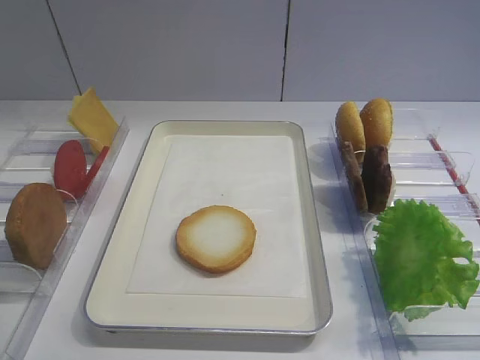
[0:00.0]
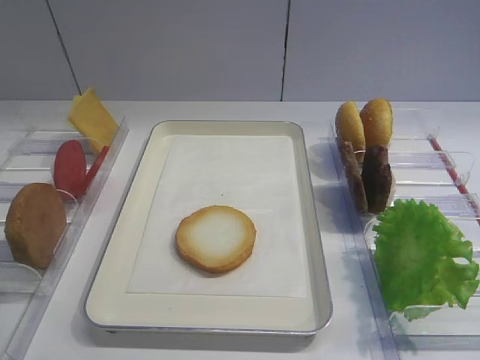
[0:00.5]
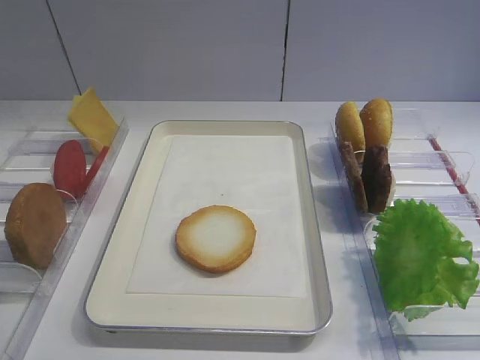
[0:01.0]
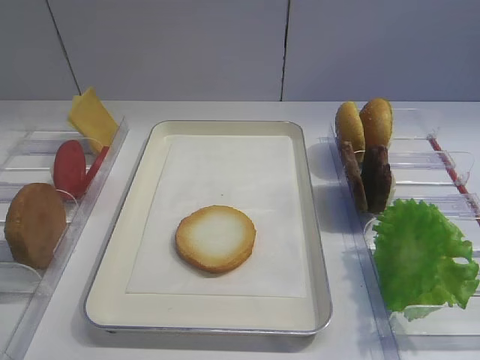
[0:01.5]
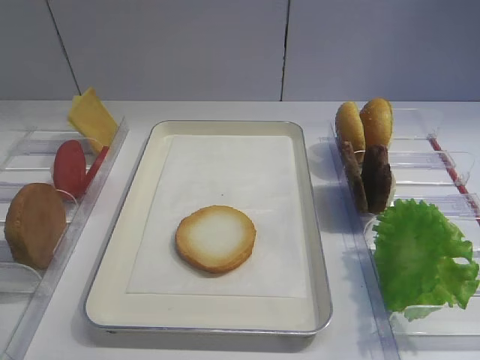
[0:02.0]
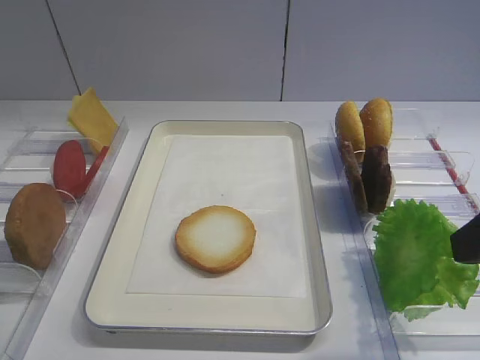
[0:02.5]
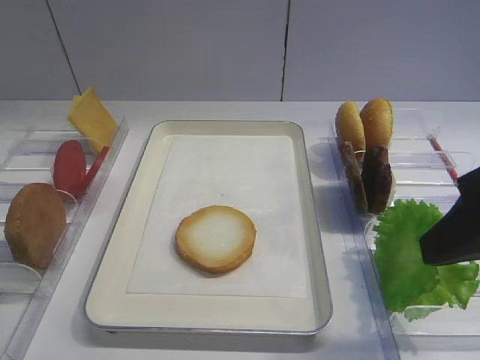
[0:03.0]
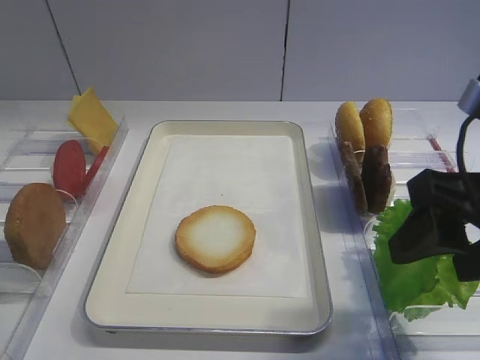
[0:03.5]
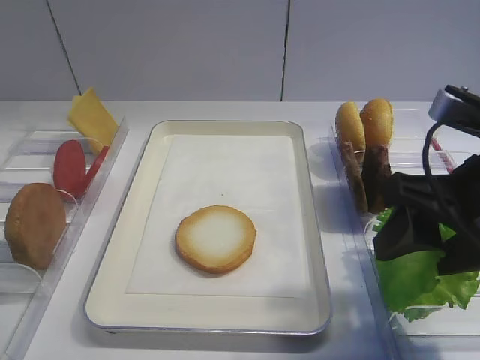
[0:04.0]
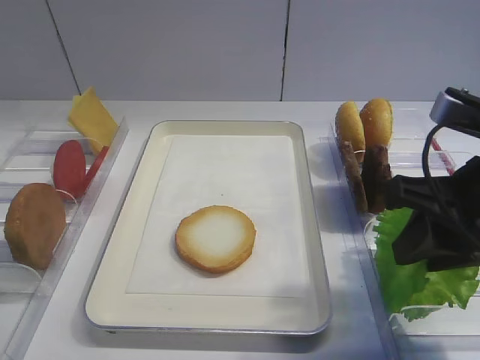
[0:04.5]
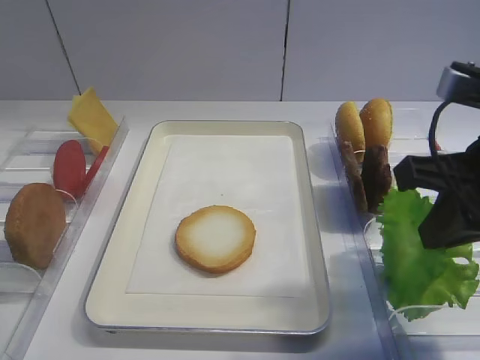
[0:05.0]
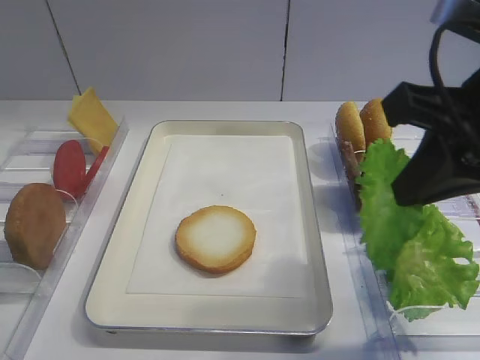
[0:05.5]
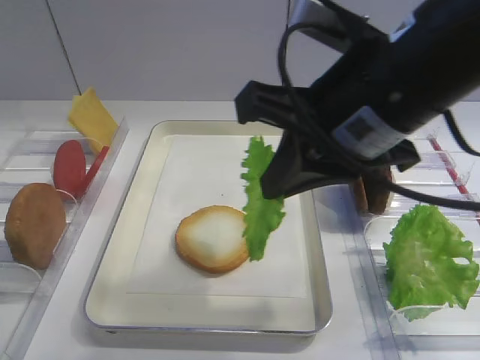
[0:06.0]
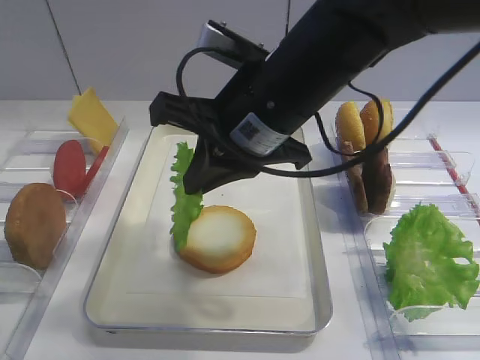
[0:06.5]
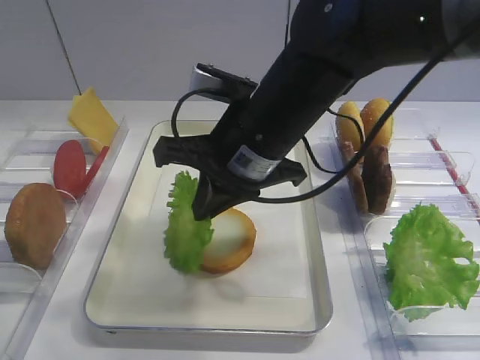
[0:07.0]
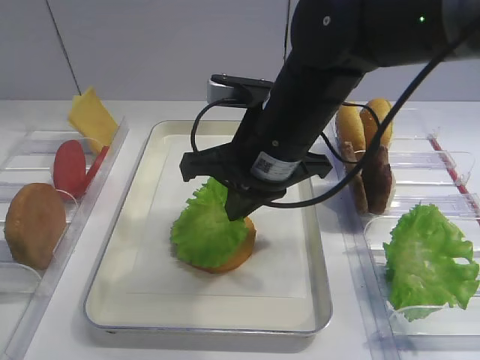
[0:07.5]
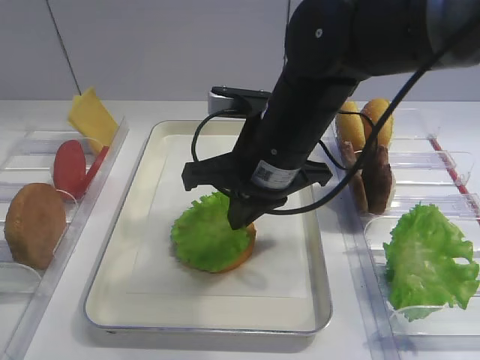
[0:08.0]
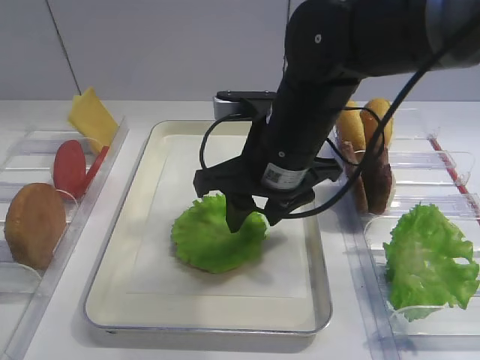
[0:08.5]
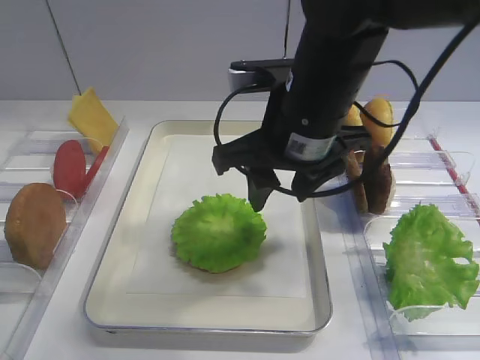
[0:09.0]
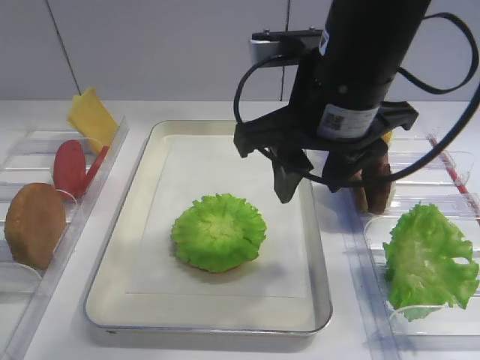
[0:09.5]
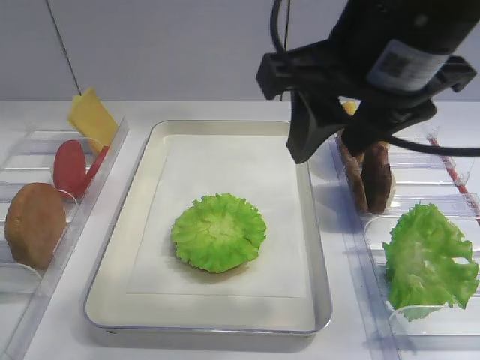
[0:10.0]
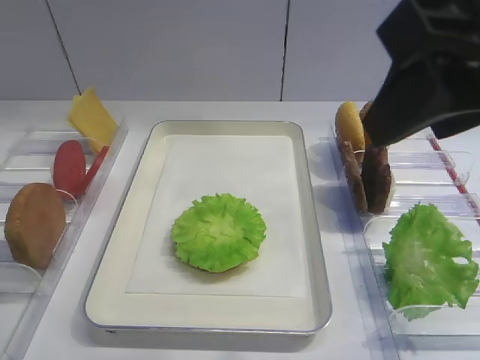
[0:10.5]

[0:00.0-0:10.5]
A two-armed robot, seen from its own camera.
Step, 0:00.0 to 0:05.0: Pick up the lettuce leaf with the right gripper.
Step, 0:05.5 to 0:09.0: Place the lettuce leaf on the bread slice with the right gripper.
0:02.0 to 0:04.0: The right gripper shifts roughly 10 cm forward.
0:04.0 to 0:06.5: The right gripper goes roughly 20 cm to the left and forward, and closes up.
0:06.5 to 0:08.5: The right gripper travels downward by some 5 cm, and opens.
0:08.5 to 0:10.5: The right gripper is displaced upward, backward and to the right by some 25 cm.

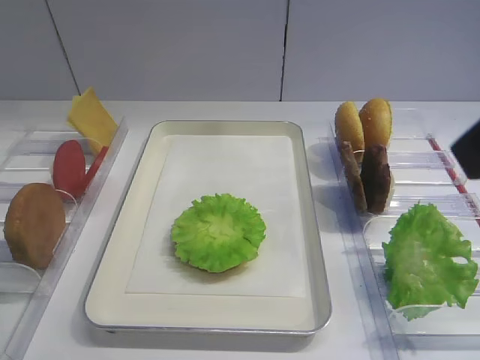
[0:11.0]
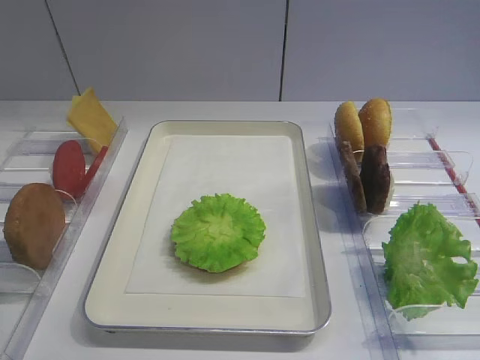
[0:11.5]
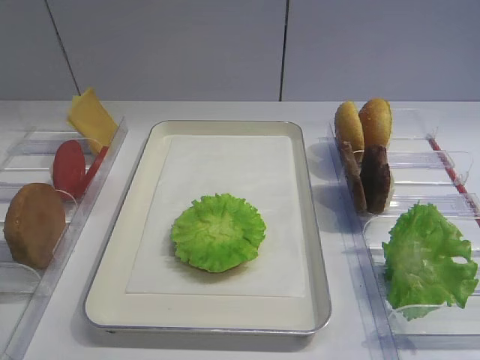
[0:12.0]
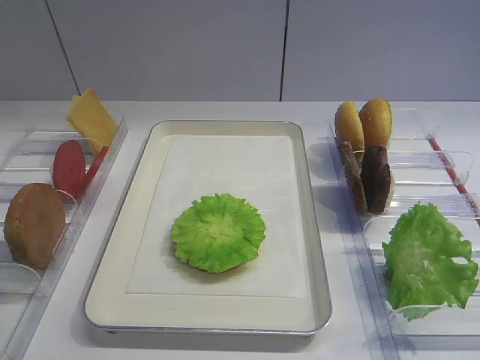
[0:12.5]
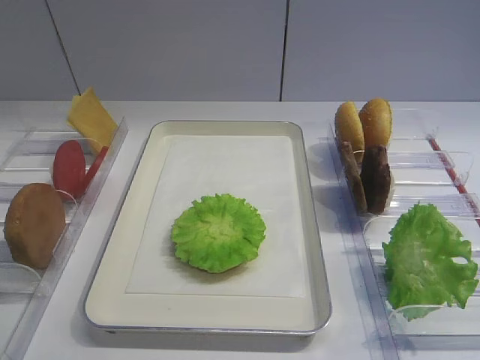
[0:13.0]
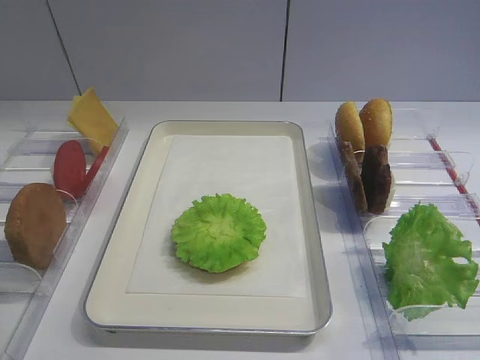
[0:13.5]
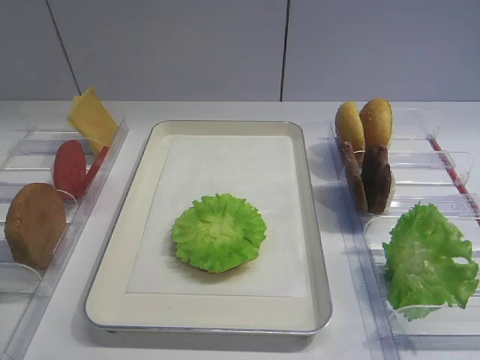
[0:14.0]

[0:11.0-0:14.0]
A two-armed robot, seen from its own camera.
0:11.0 to 0:12.5: The right gripper is displaced downward, backward and to the right by roughly 15 cm.
0:12.5 to 0:14.0: The two grippers keep their place.

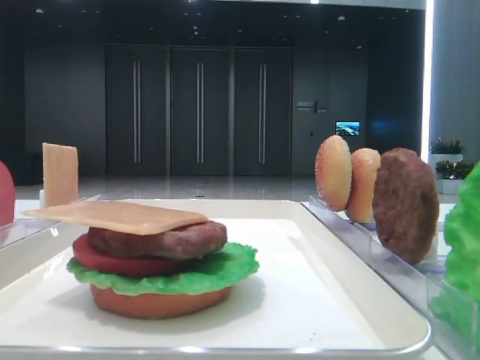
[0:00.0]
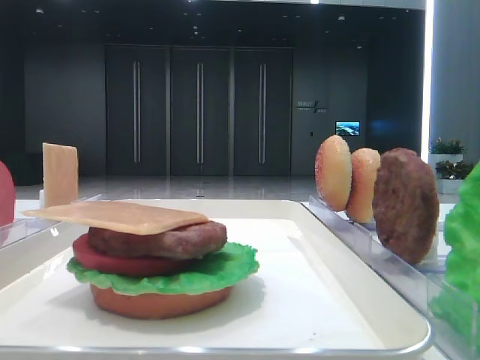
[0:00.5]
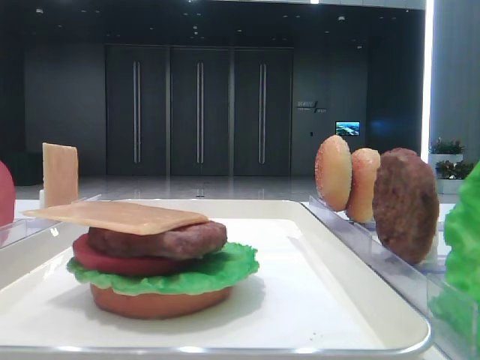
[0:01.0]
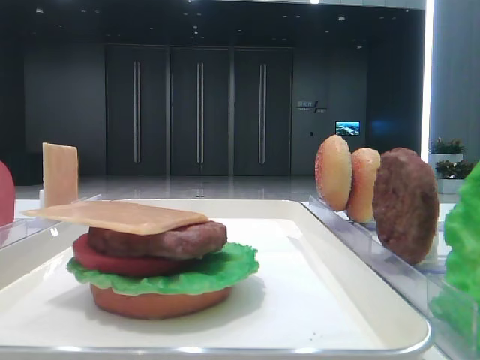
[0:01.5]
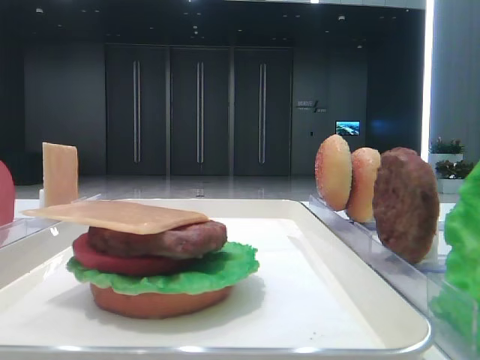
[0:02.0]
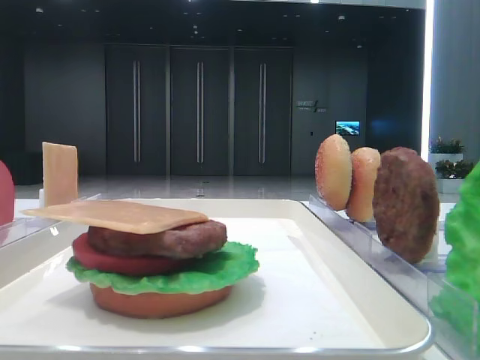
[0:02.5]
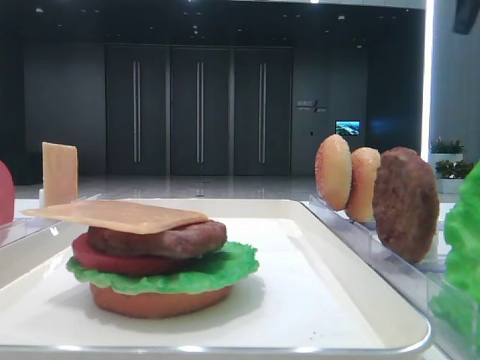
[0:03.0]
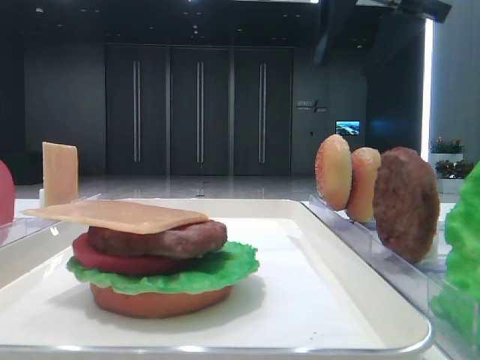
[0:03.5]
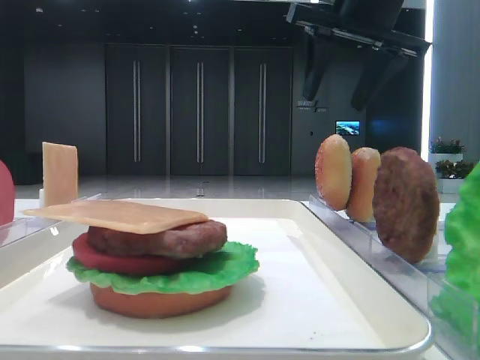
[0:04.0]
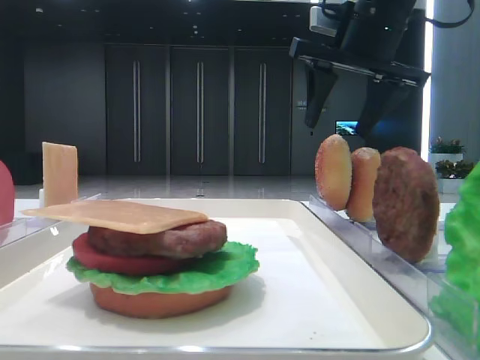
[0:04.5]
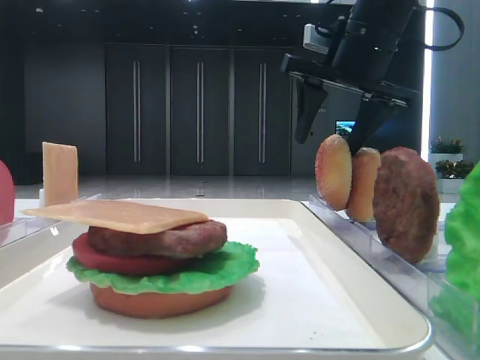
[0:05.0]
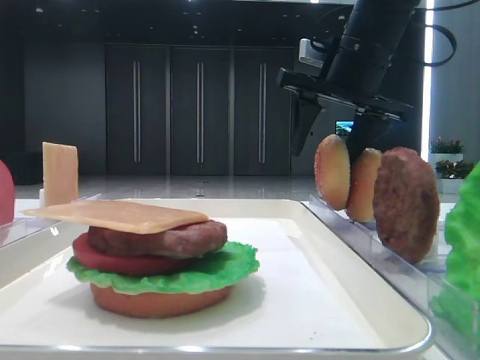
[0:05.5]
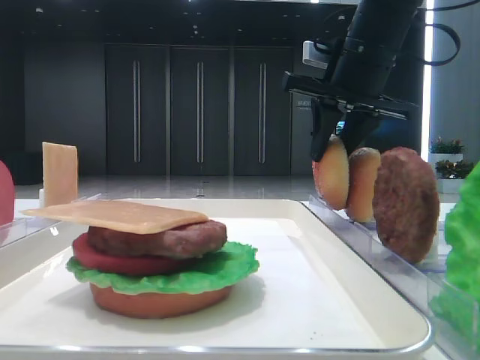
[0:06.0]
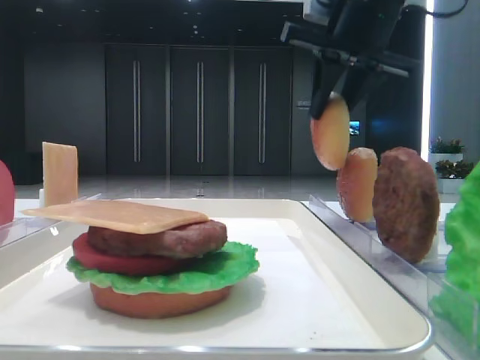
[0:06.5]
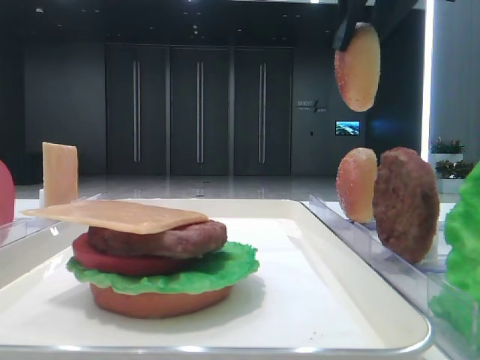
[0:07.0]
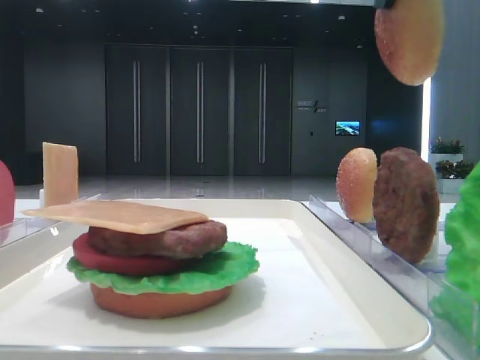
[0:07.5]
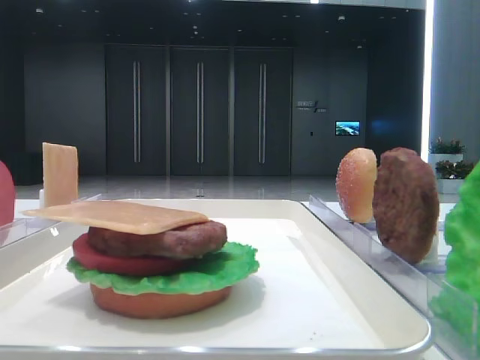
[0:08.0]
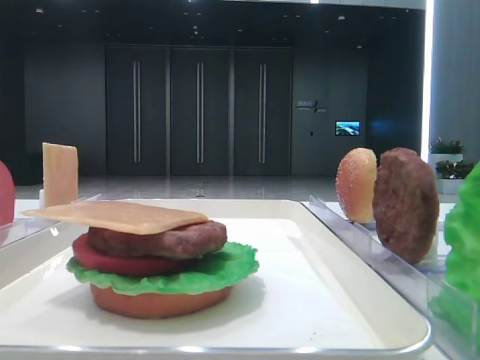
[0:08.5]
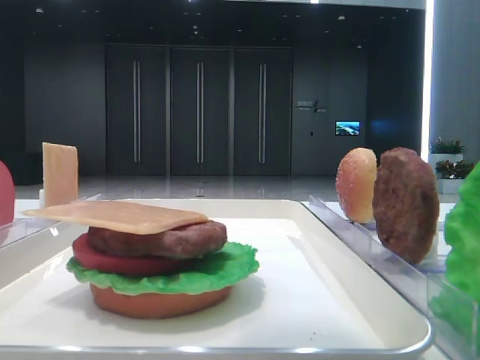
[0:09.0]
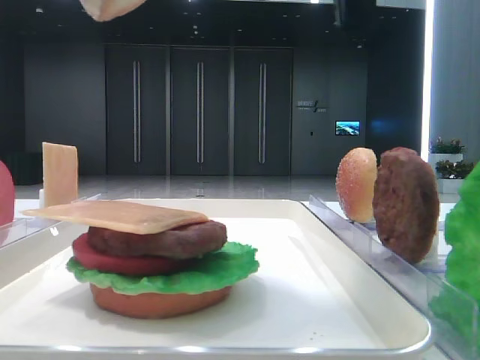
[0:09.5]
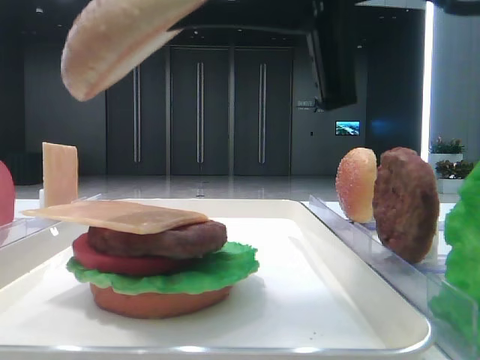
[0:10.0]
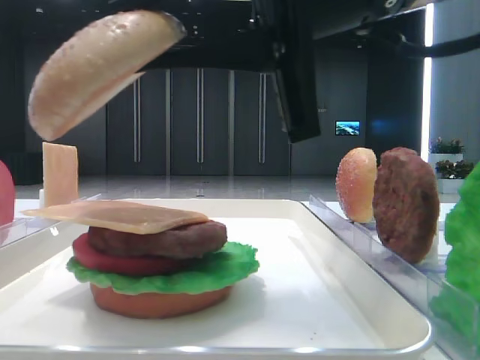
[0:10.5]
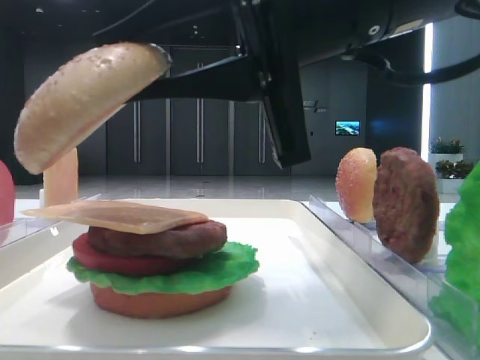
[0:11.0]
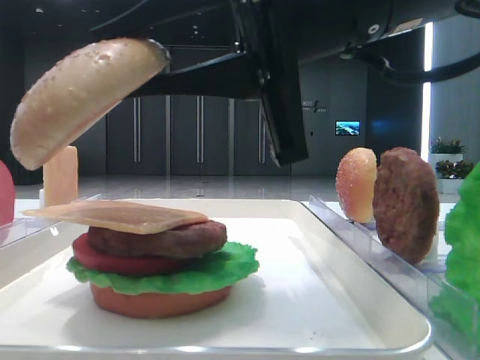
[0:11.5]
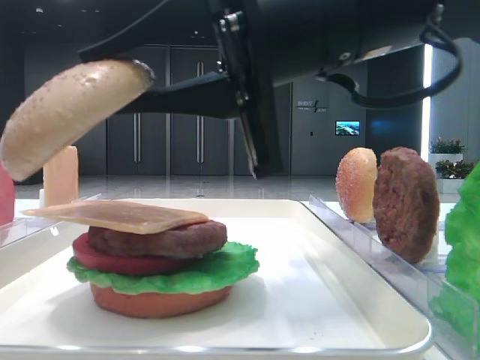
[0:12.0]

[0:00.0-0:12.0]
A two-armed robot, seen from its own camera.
Step, 0:00.0 to 0:06.0: Pick up the top bread slice with the right hand.
0:02.0 to 0:04.0: The right gripper moves forward and to the left, some 25 cm, and opens up.
0:04.0 to 0:06.0: The right gripper shifts approximately 5 cm downward, and closes.
0:06.0 to 0:08.0: The right gripper travels backward and upward by some 35 cm.
0:08.0 to 0:10.0: The right gripper heads downward, forward and to the left, covering some 20 cm.
0:10.0 to 0:12.0: The right gripper moves approximately 5 cm.
